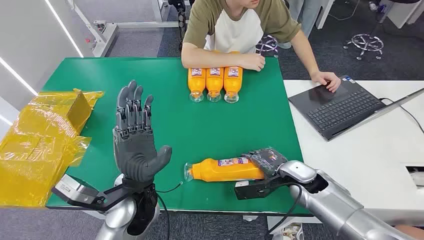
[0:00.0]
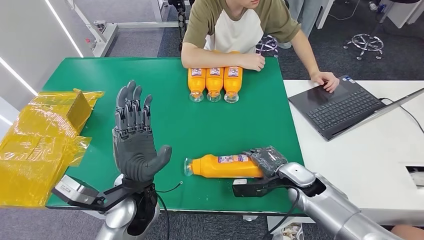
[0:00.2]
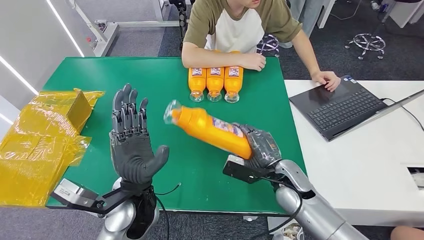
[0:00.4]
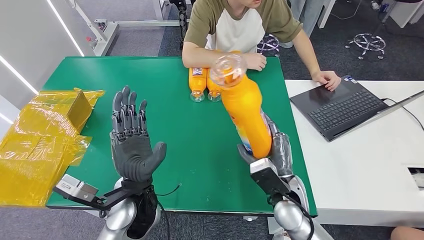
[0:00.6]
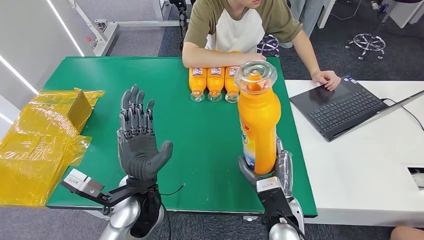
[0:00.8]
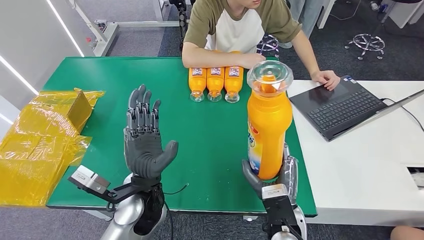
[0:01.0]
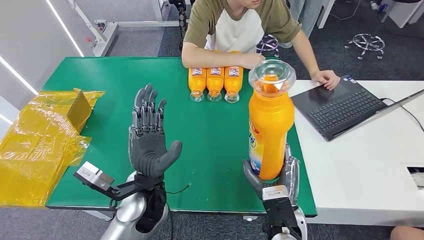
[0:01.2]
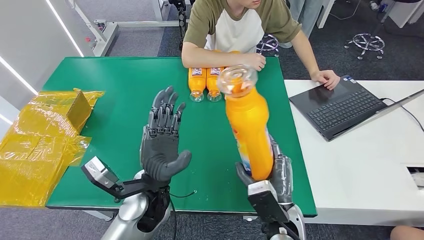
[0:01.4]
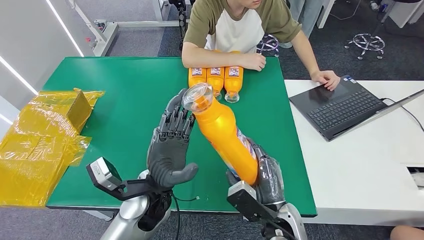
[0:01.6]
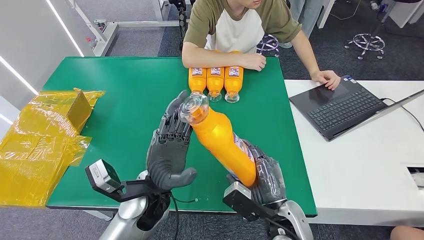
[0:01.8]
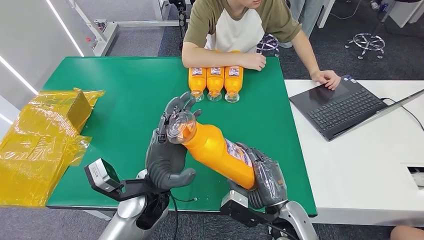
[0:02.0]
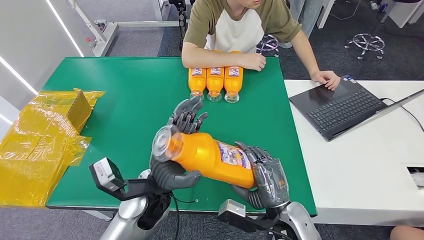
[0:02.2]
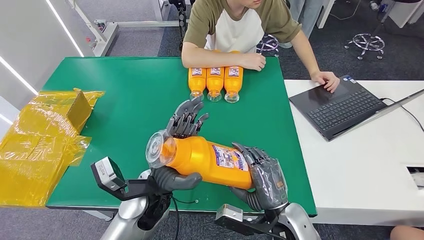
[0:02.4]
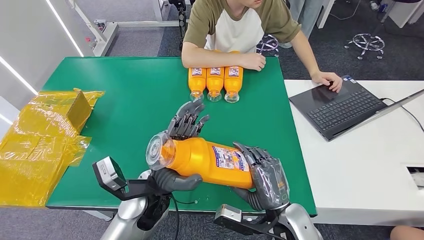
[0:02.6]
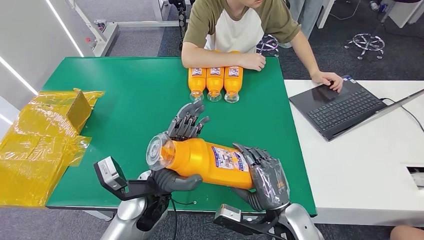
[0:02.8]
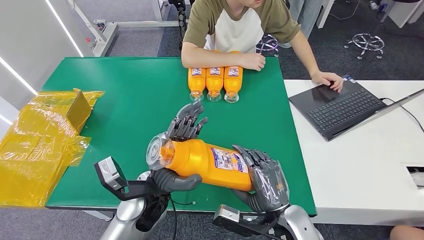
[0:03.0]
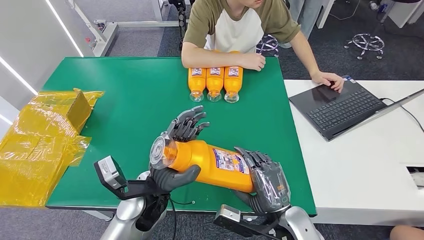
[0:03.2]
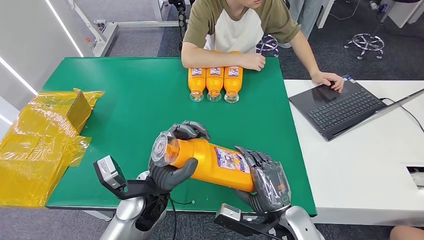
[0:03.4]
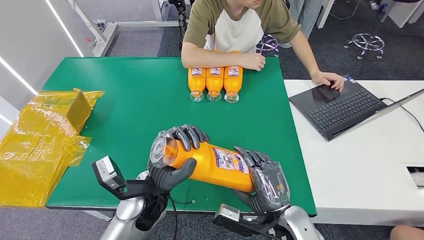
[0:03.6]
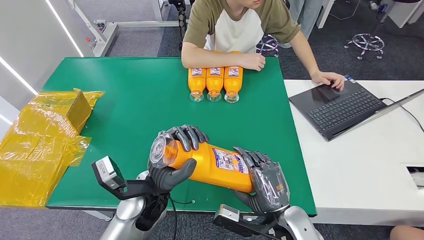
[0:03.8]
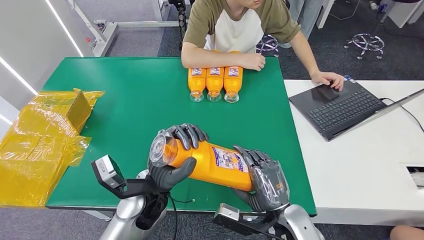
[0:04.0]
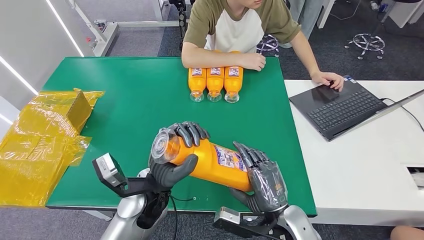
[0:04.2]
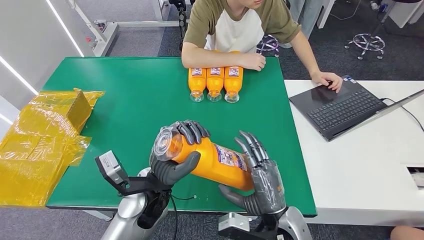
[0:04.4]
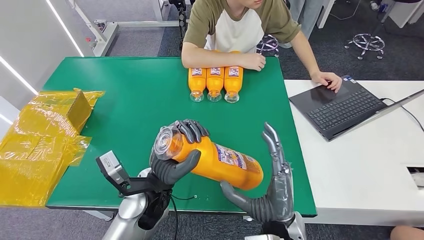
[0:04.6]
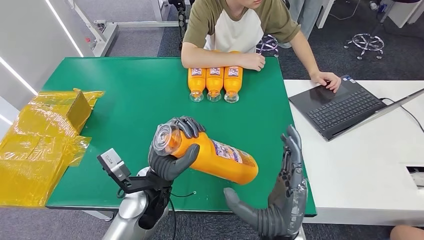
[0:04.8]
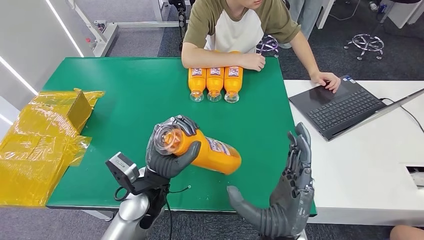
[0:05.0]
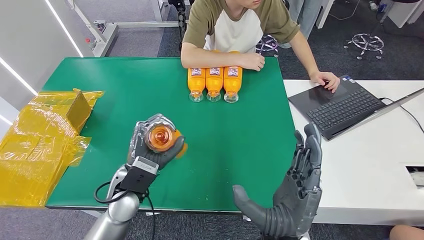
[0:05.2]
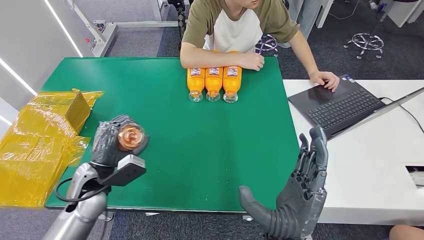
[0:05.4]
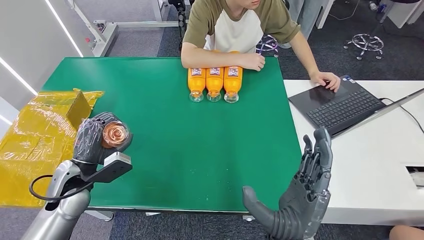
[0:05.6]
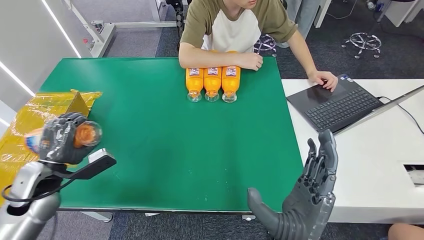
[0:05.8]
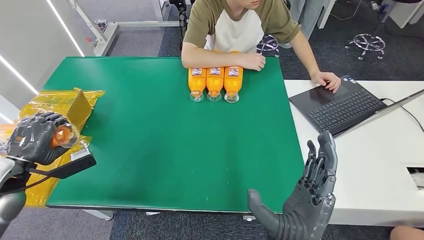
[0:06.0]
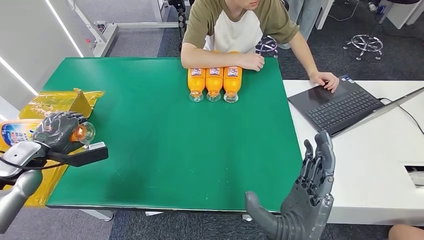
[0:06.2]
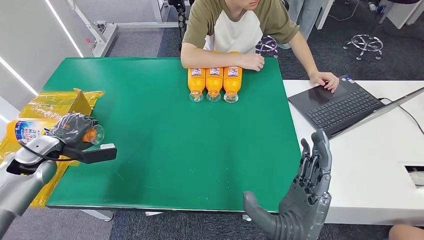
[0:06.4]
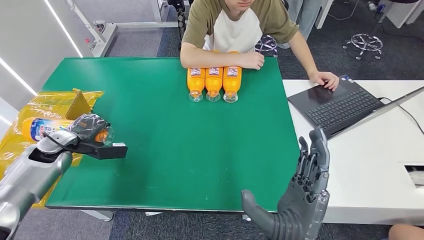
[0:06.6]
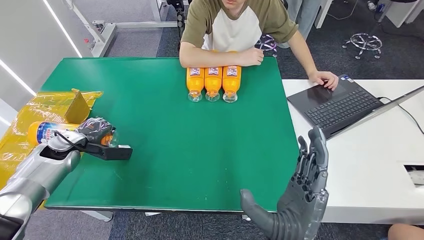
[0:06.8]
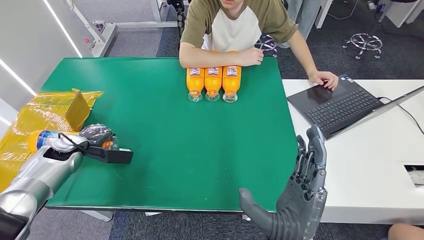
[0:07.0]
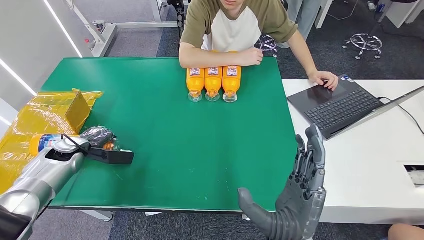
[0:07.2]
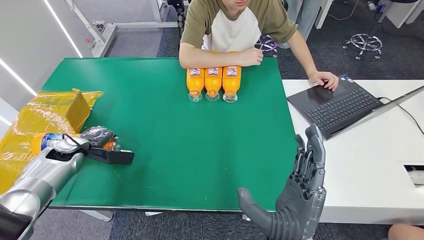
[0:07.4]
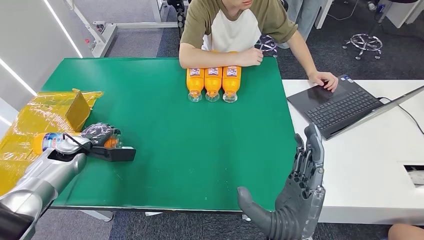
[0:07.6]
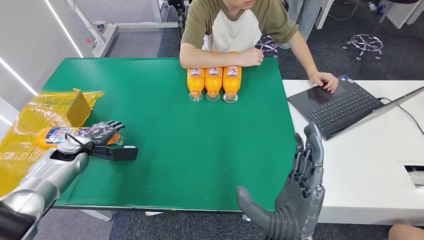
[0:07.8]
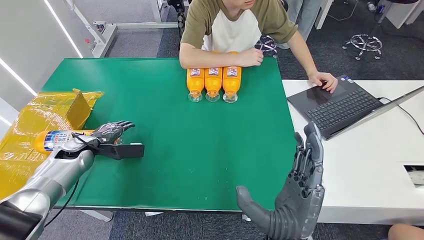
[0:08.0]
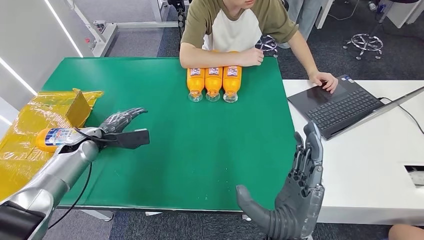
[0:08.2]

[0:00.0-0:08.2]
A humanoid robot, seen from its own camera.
Step, 0:00.0 to 0:02.4: Pick up the bottle from the table.
Step, 0:02.6 to 0:08.2: Turn the bottle to the front side.
0:03.2 to 0:05.0: The right hand moves to the left and upward, roughly 10 cm.
0:06.6 to 0:08.2: The left hand is displaced to the right by roughly 5 cm.

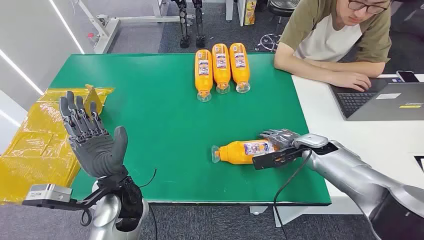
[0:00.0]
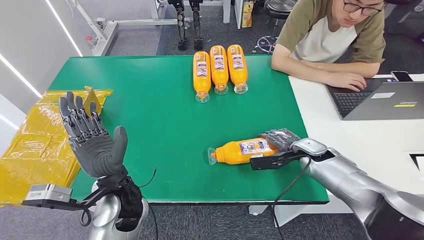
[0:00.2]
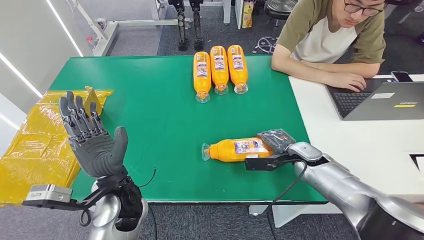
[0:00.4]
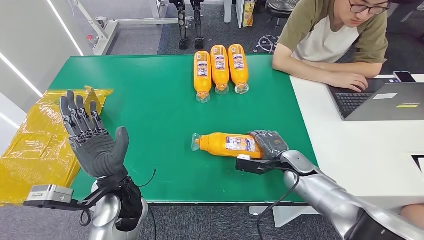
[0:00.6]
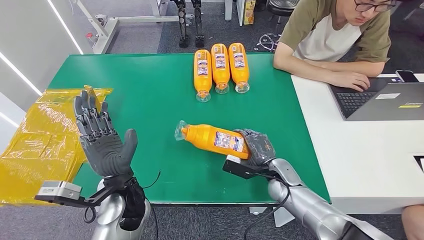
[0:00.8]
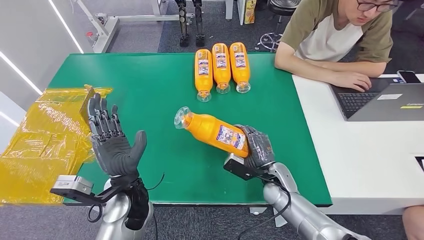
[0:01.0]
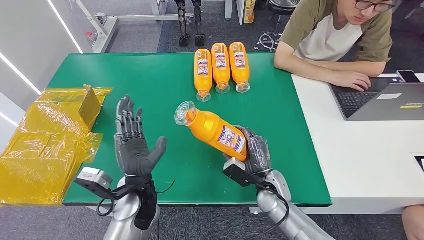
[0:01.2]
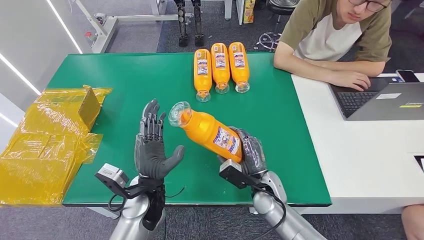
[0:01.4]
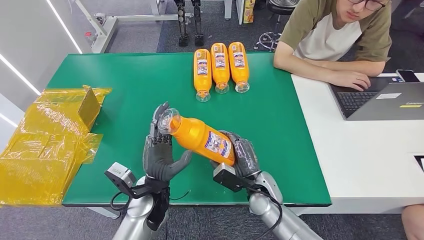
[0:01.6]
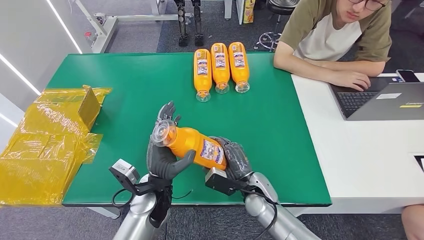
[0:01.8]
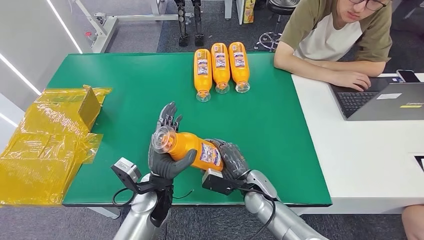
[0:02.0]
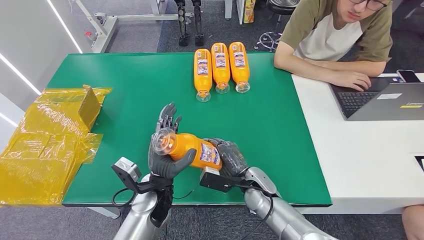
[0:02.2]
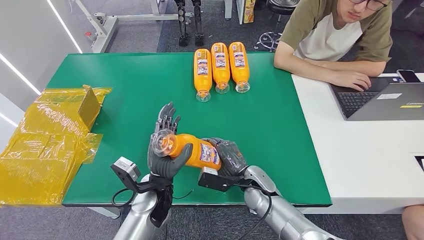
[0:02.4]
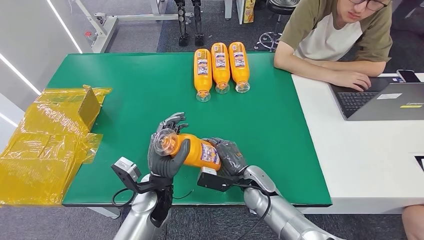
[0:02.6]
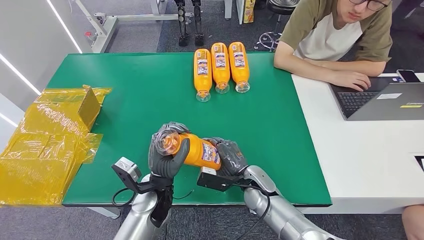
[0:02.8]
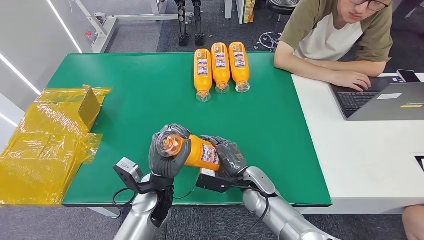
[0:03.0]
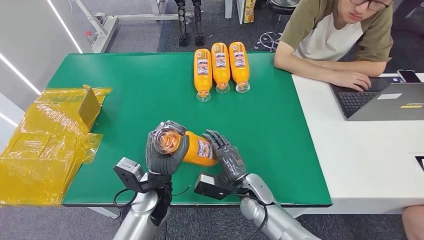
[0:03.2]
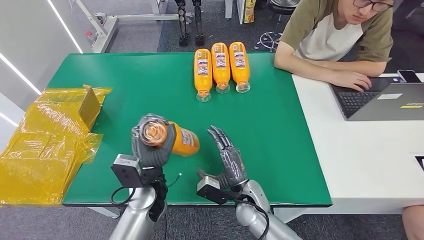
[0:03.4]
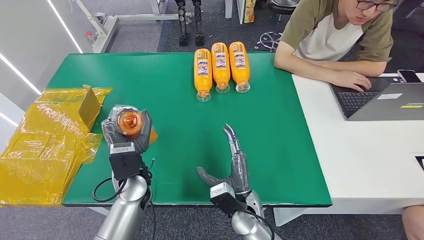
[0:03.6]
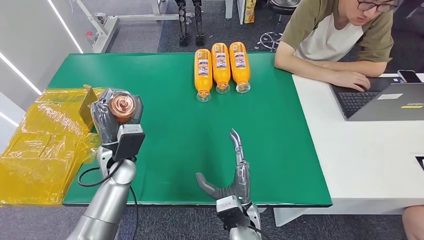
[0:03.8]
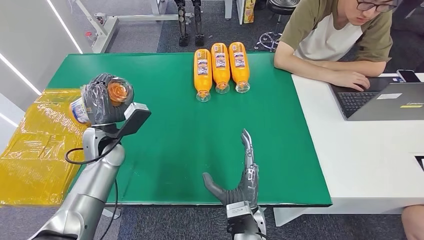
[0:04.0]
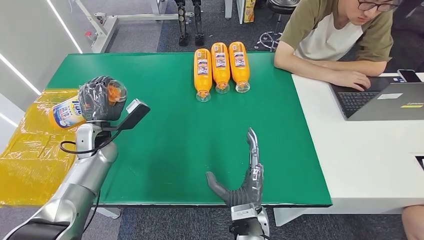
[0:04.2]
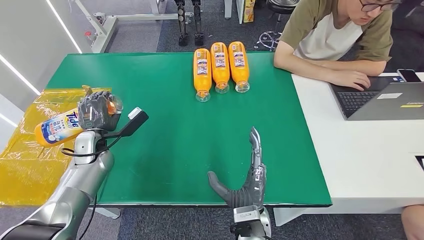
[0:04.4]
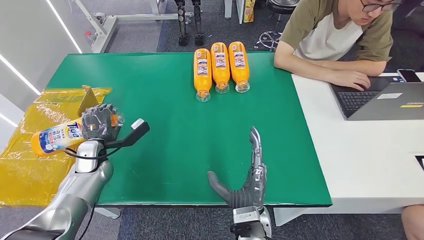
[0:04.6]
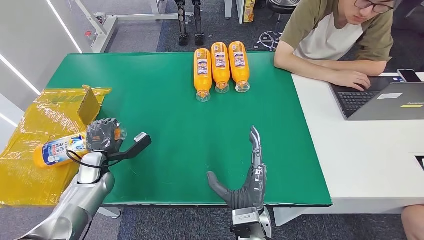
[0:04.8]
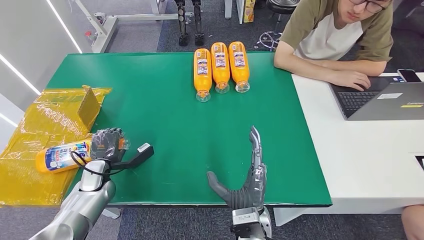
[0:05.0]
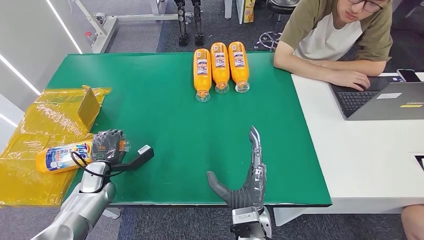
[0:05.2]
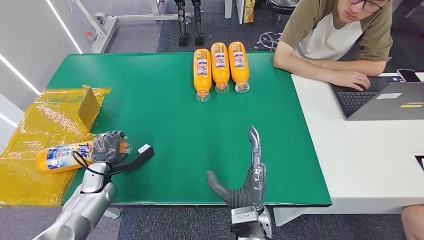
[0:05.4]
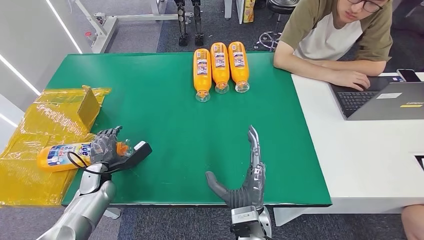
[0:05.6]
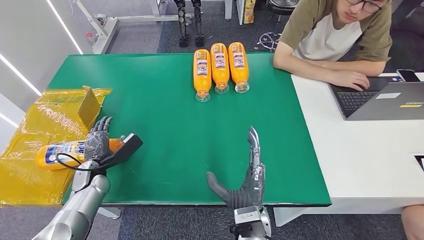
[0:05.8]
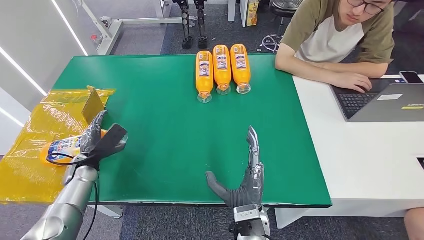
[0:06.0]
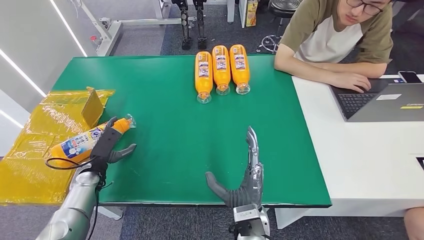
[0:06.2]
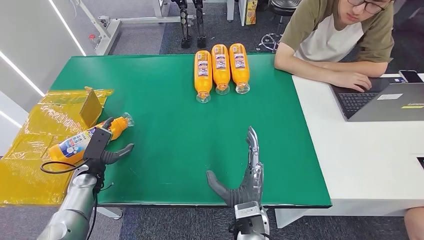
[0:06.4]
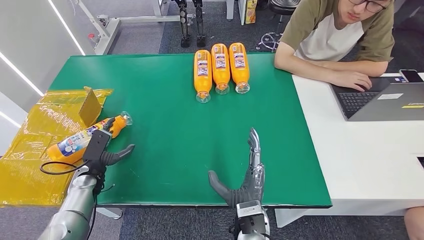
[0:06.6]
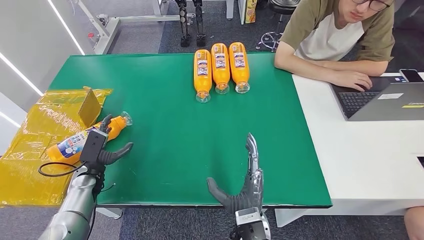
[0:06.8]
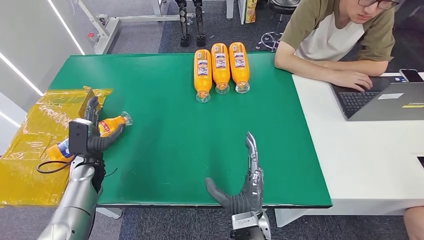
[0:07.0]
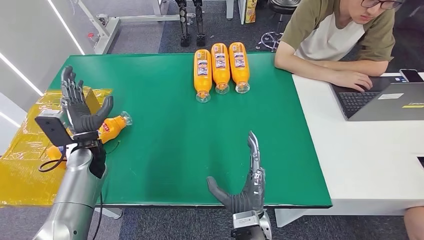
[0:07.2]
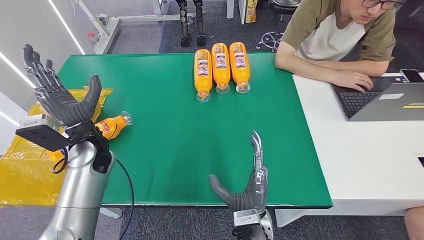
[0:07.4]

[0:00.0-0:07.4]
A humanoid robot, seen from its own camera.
Step, 0:00.0 to 0:02.0: Pick up the bottle from the table.
Step, 0:02.2 to 0:07.4: Turn the bottle to the front side.
0:03.0 to 0:04.4: The left hand moves to the left and forward, approximately 25 cm. Meanwhile the right hand heads backward and to the left, covering roughly 15 cm.

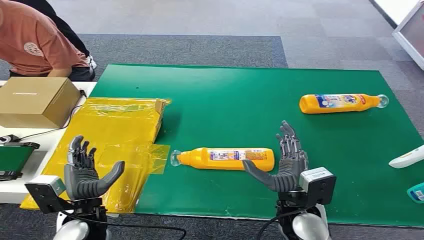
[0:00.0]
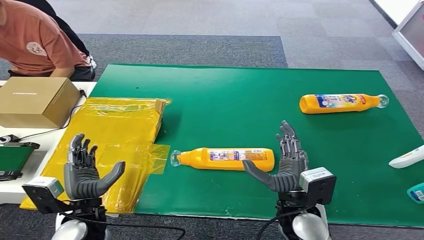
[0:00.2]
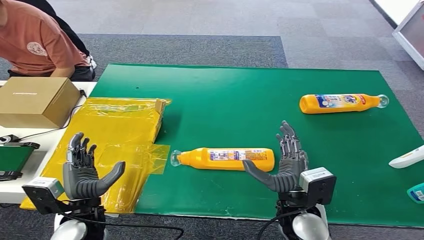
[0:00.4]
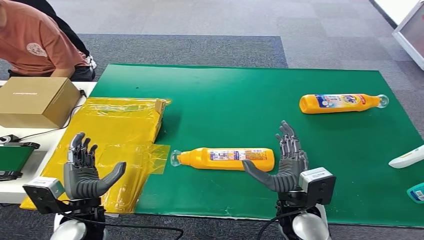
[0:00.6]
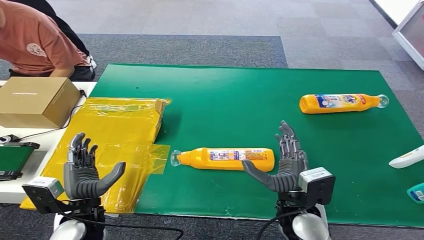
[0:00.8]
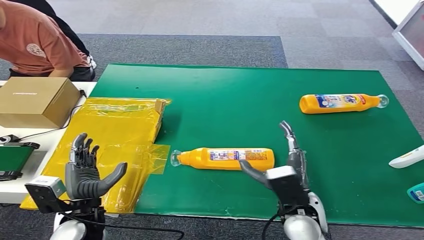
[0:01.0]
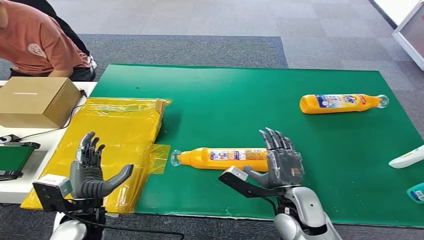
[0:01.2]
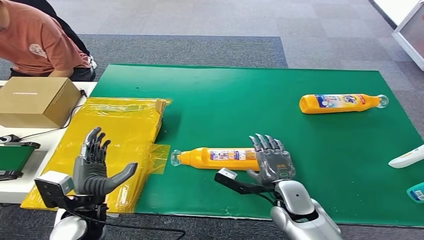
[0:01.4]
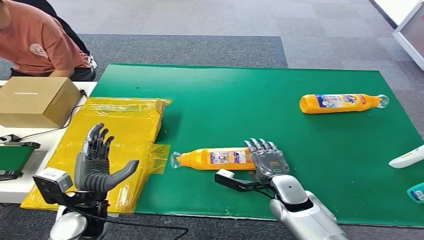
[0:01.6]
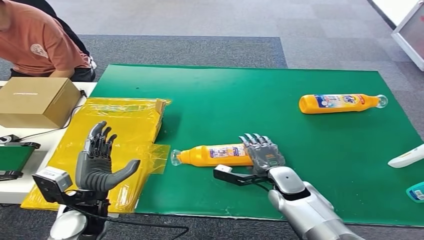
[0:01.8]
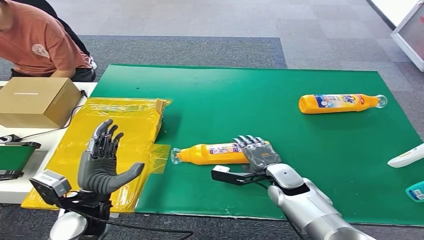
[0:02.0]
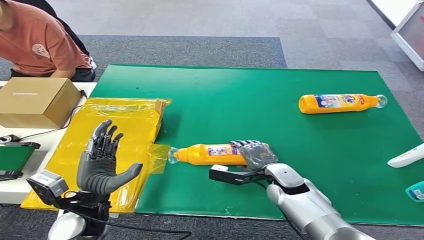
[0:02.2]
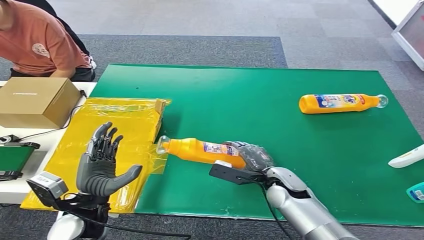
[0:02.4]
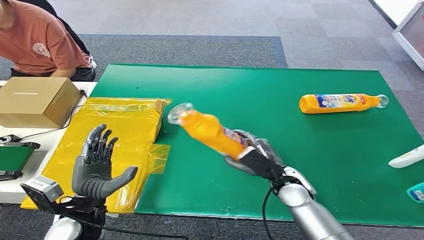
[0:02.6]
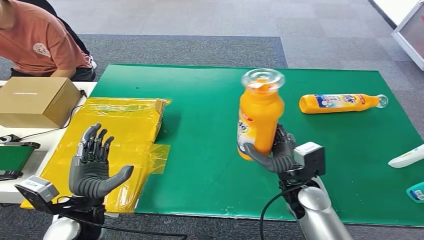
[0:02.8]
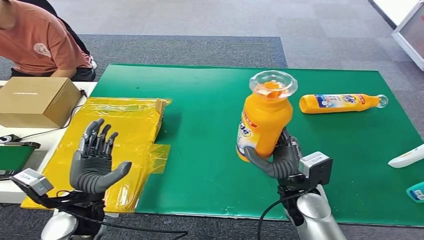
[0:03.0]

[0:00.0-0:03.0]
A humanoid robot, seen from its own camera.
0:01.6 to 0:03.0: The right hand shifts some 5 cm upward.
